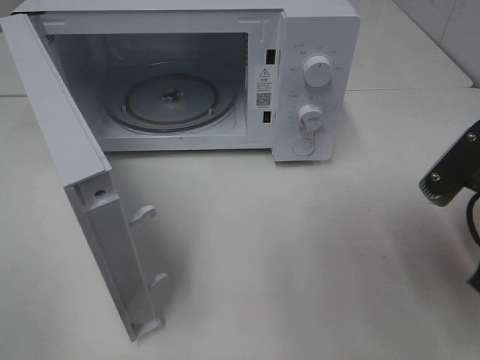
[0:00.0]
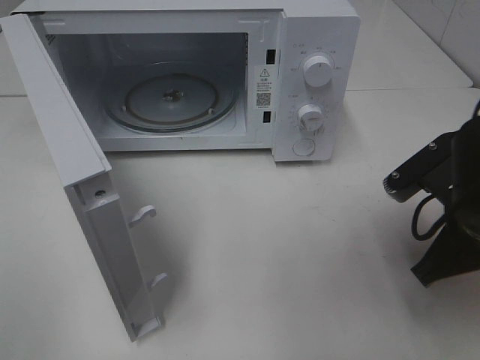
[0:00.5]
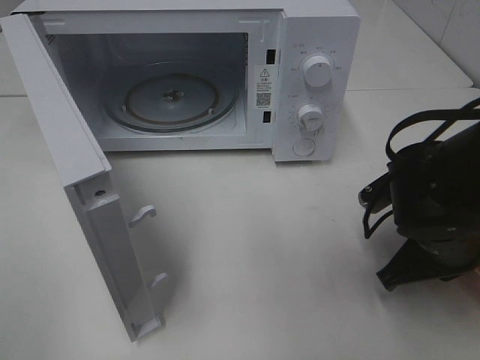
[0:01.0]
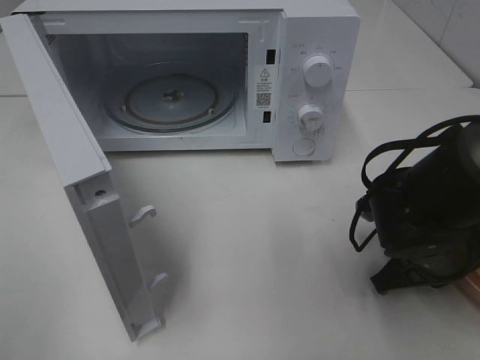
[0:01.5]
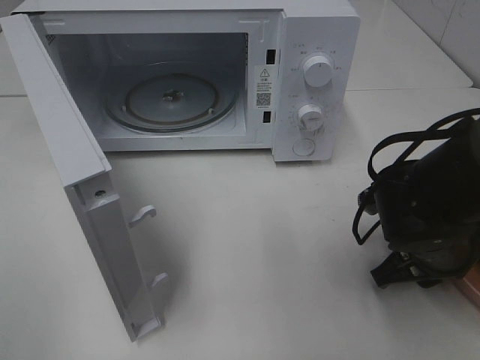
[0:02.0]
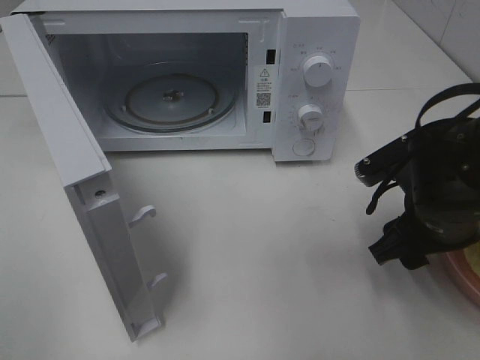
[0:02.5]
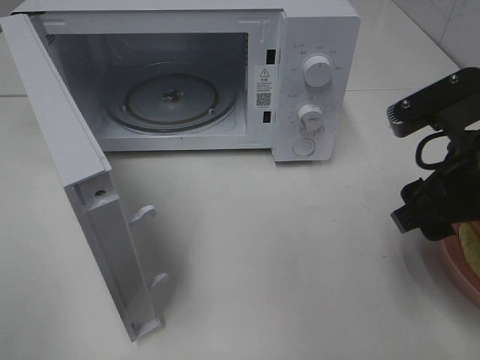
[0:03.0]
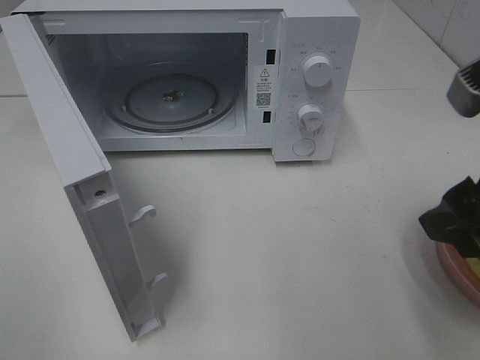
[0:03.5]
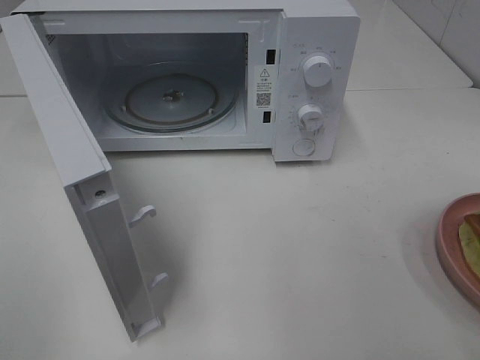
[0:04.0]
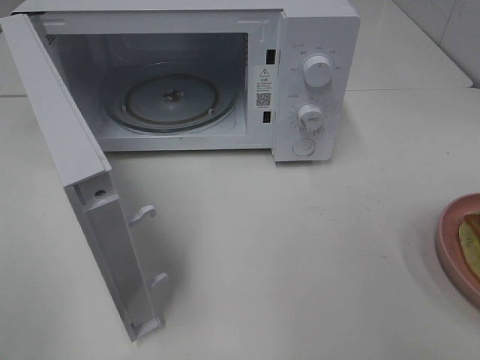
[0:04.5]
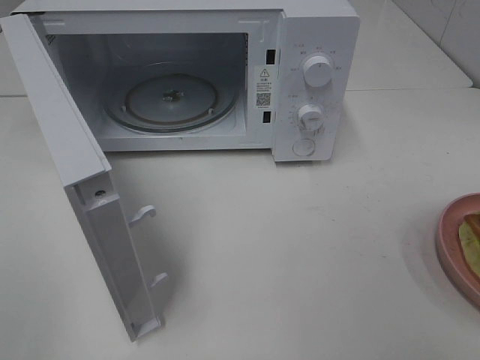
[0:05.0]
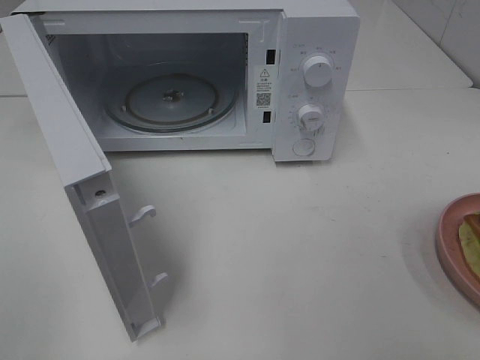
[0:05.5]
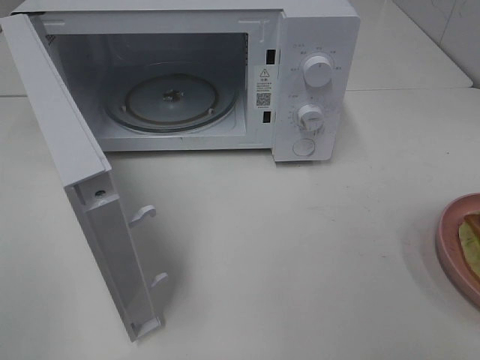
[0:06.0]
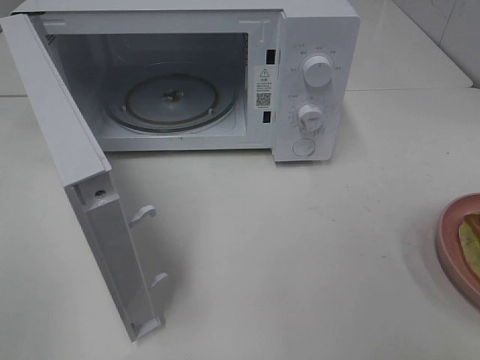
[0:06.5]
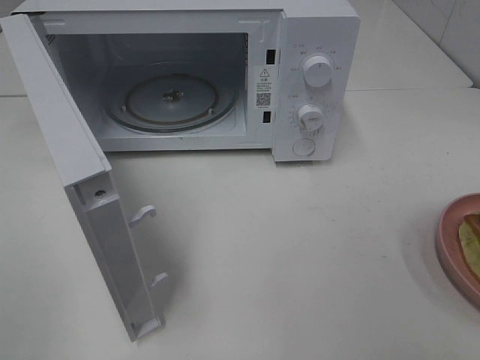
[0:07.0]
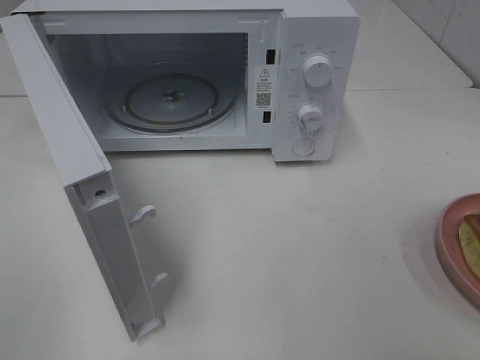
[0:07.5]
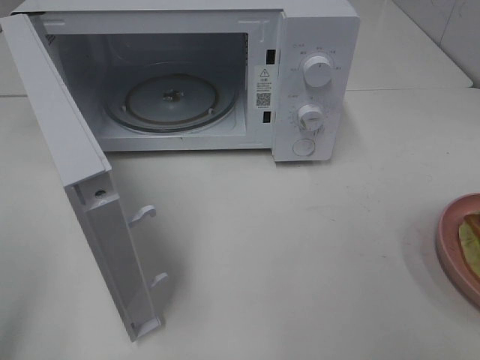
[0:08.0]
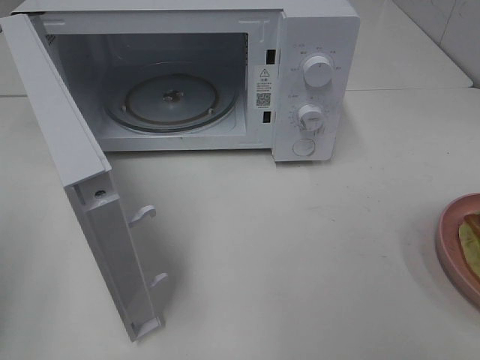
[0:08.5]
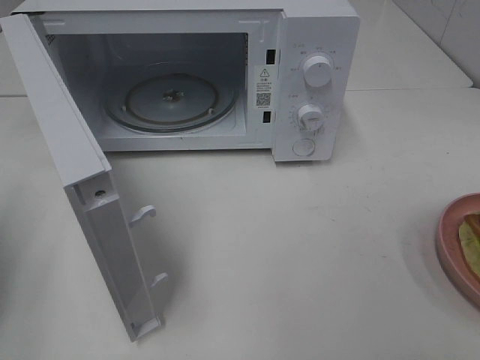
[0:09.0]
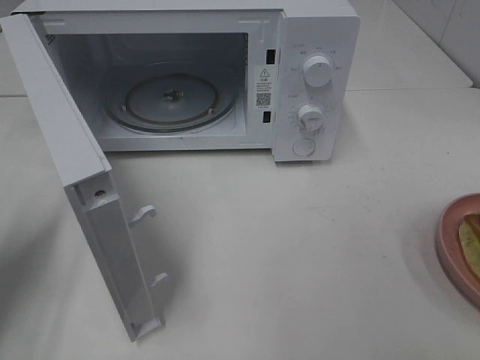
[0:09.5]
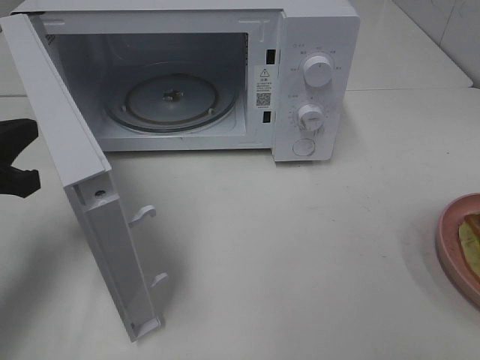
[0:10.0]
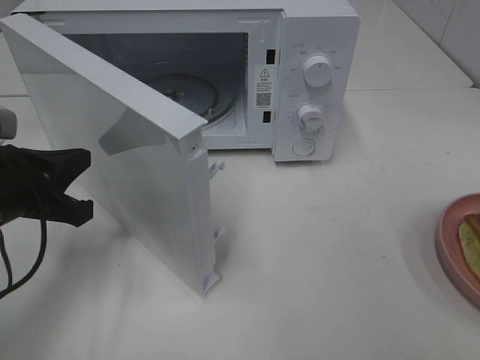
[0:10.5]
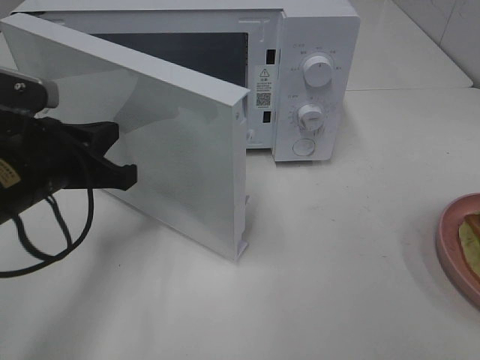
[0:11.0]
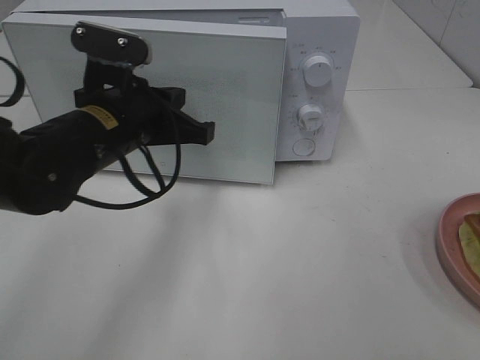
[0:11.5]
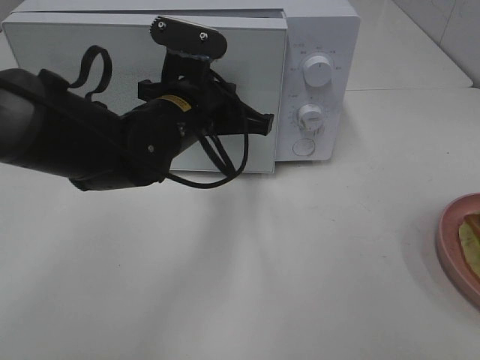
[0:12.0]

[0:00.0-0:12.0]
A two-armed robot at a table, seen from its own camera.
Task of the whole recording: Heat Sandwich.
Step, 0:00.0 to 0:03.0: Right hand: place the plate on the table.
0:00.0 to 0:02.0: The right gripper goes roughly 10 cm downward and forward, and opens up.
0:02.0 to 0:04.0: The right gripper shifts about 25 cm upward and backward.
0:08.0 to 0:10.0: The left gripper moves forward and downward, about 20 cm, and closes up.
0:10.0 to 0:12.0: The left gripper goes about 20 cm to the right.

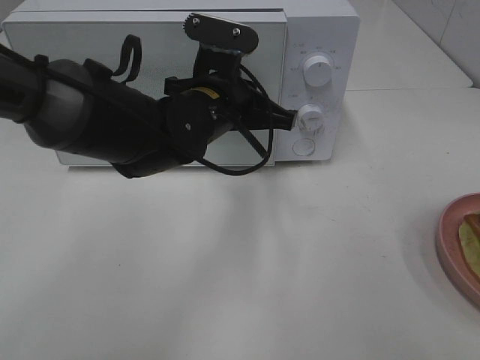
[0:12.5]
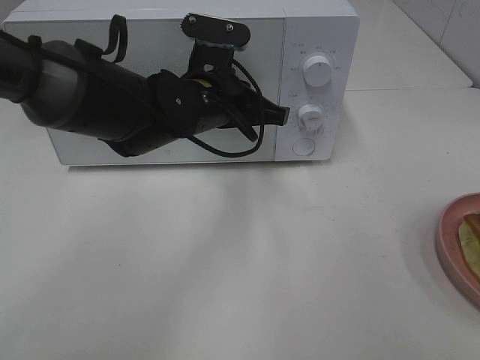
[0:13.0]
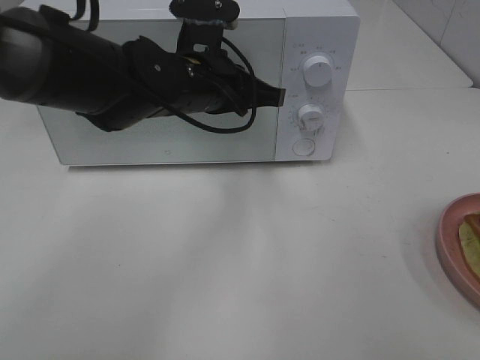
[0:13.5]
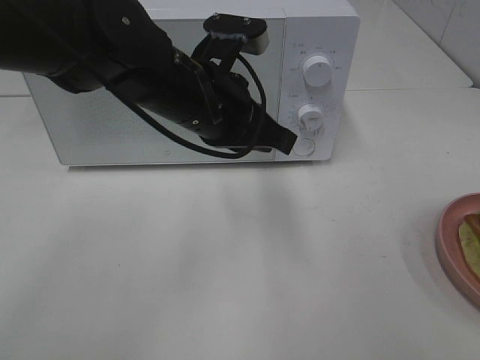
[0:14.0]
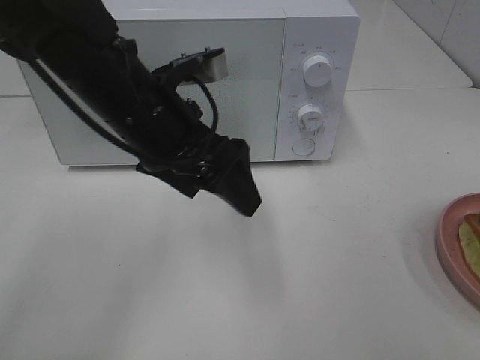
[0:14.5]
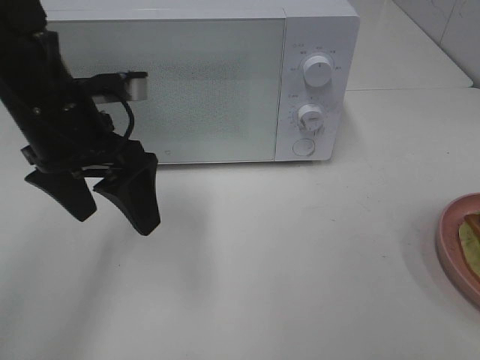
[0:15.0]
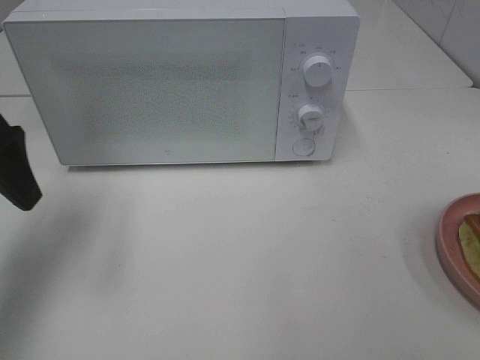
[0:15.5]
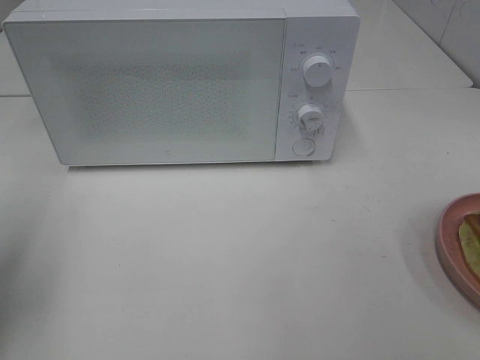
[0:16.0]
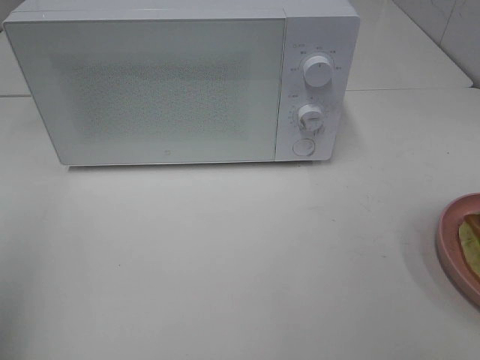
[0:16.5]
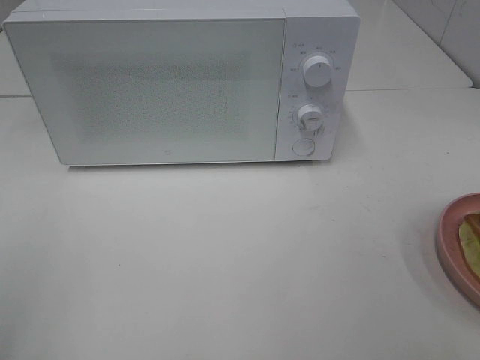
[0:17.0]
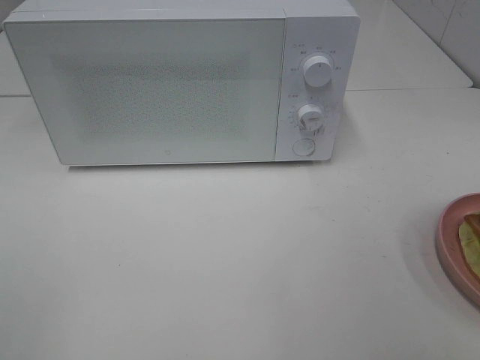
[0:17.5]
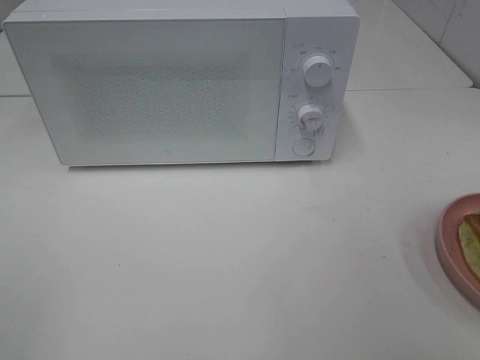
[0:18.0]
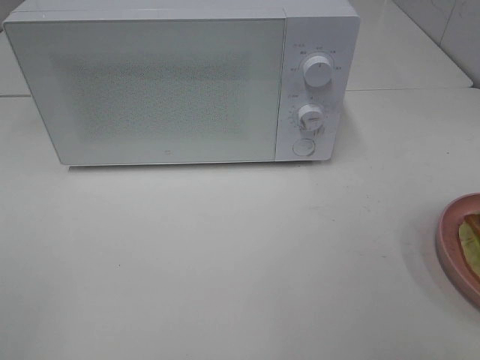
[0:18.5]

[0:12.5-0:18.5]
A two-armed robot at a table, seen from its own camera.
Task of the whole recording: Heat Sandwich.
0:12.5 to 0:14.5: The left gripper shifts approximately 5 cm to the left, and opens up.
0:14.5 to 0:16.5: The left gripper goes some 35 cm to the left, backward and upward.

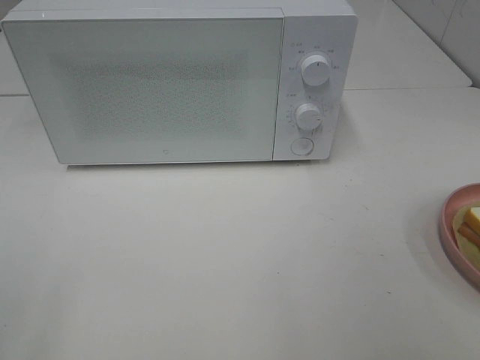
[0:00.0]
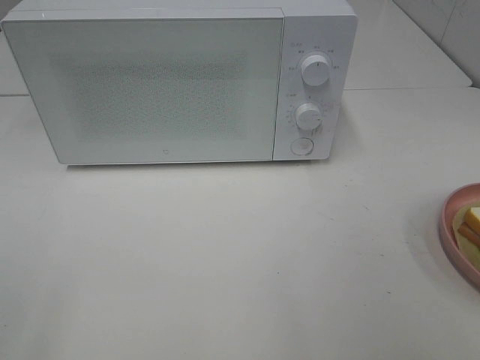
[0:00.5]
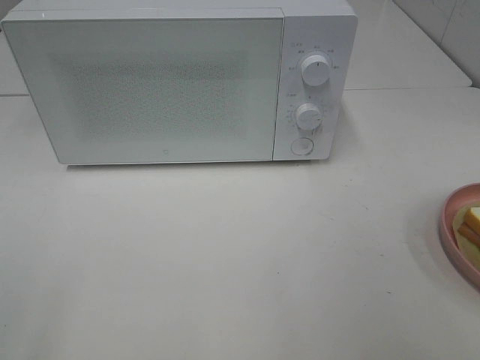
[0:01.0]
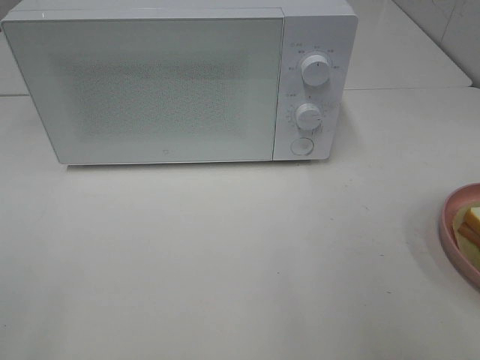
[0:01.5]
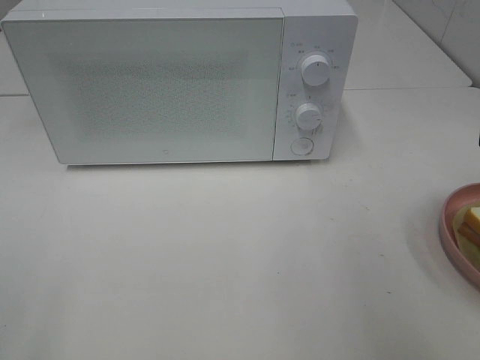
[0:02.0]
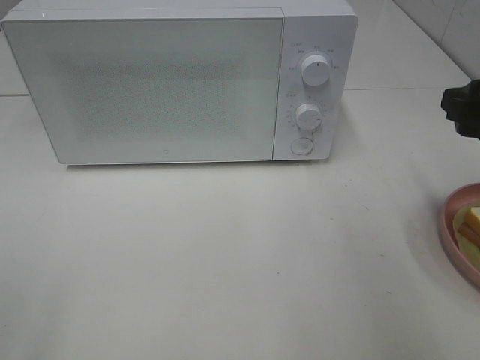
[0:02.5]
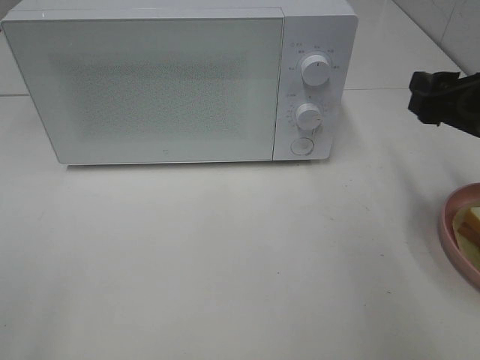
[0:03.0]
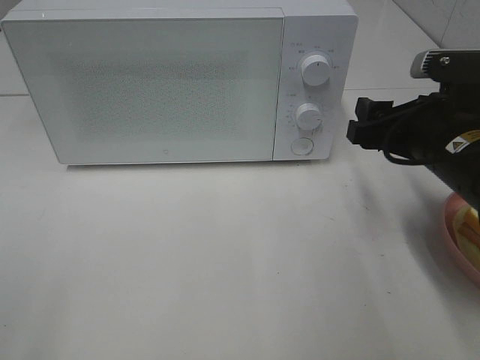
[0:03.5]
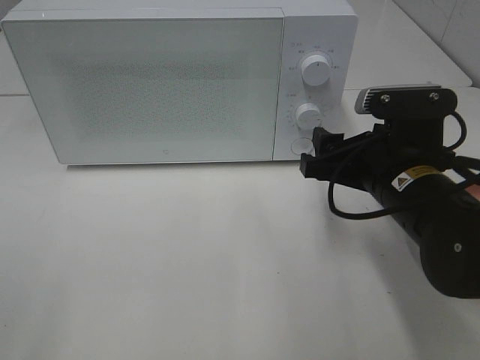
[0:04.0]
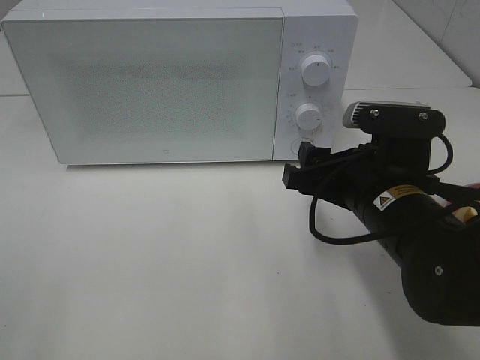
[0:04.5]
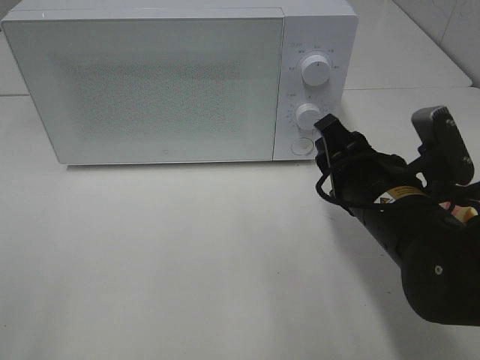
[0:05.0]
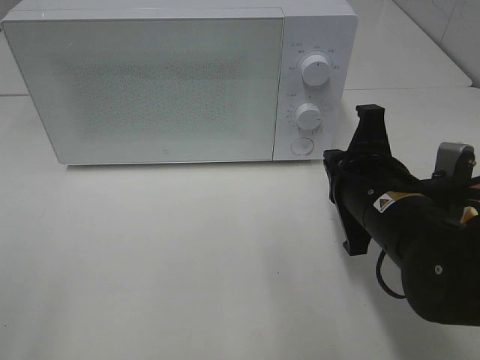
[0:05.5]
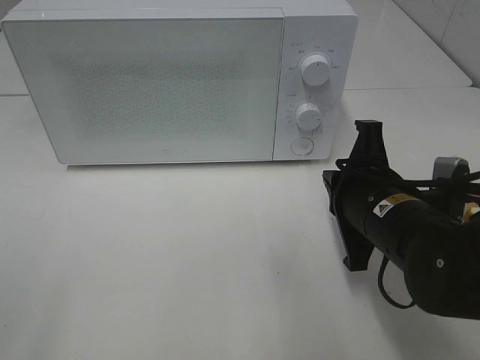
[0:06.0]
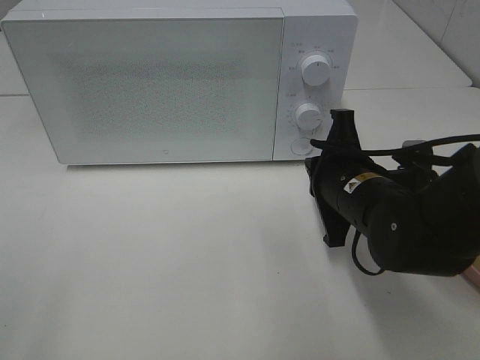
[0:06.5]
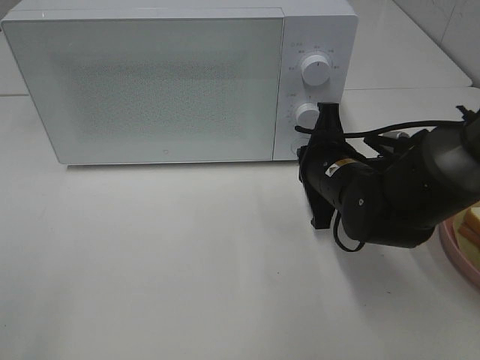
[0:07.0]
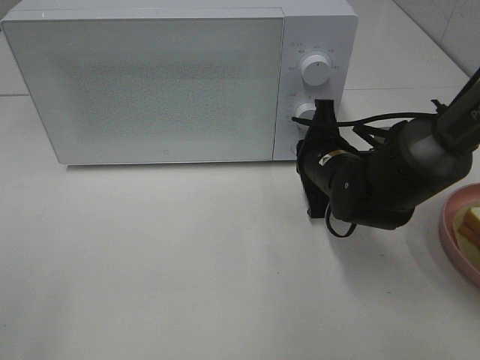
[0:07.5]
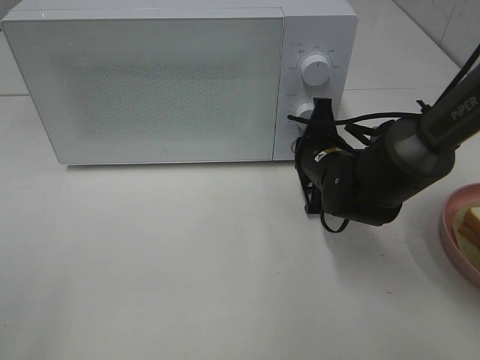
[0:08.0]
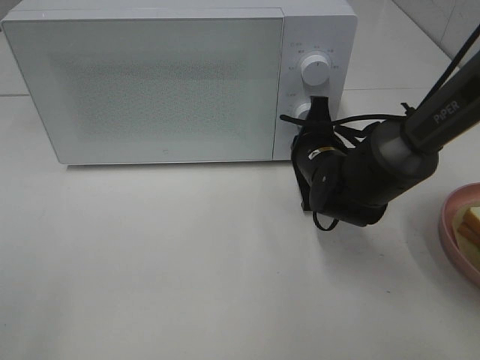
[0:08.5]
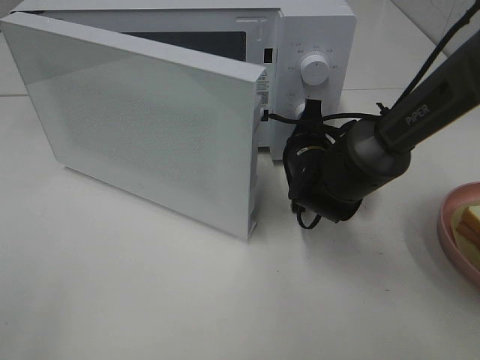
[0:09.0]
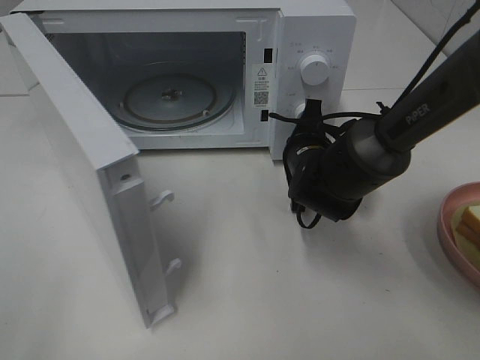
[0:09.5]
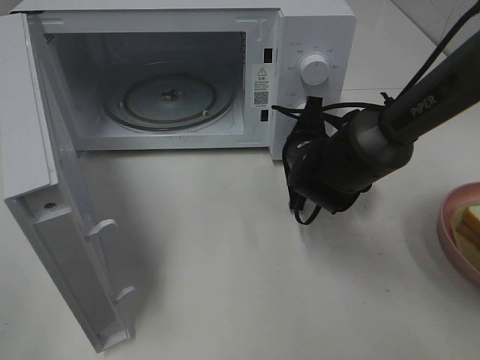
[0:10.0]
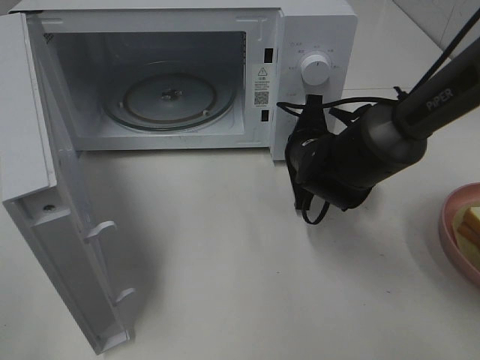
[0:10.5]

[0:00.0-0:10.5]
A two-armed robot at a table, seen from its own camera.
Task of the whole recording: Heat Sandwich.
0:02.0 to 0:04.0: The right gripper is displaced to the left, downward and forward by approximately 20 cm.
0:04.0 to 0:06.5: The right gripper changes place by some 5 cm, and closes.
0:06.5 to 0:08.5: The right gripper moves forward, approximately 10 cm.
